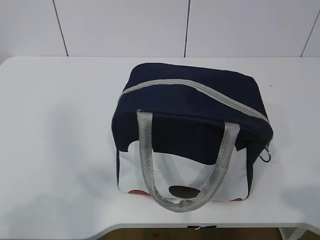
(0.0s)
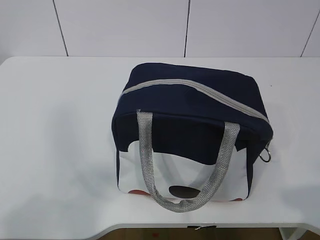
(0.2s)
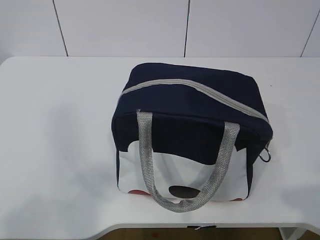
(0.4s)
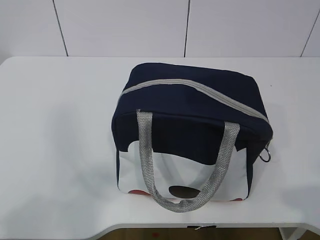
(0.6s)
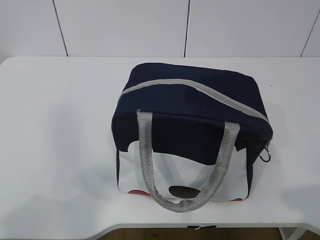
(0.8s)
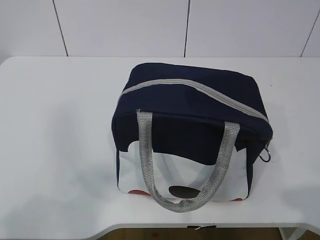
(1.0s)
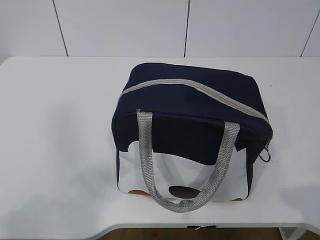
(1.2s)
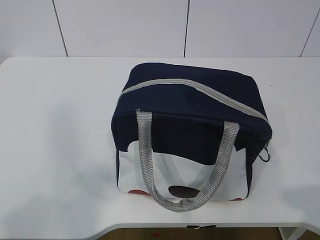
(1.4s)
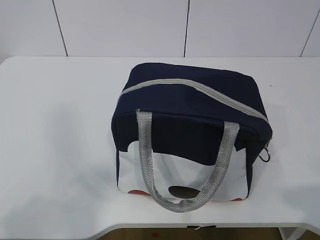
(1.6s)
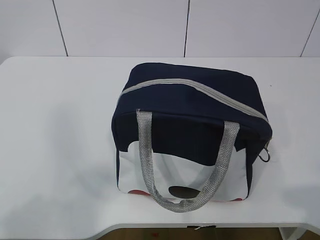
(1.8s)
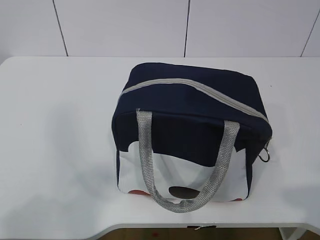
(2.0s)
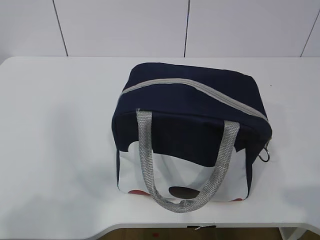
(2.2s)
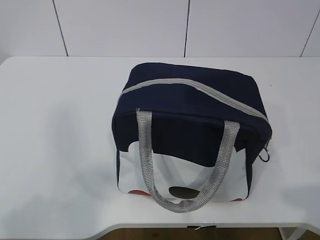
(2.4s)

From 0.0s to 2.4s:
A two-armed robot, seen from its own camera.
From 0.0s to 2.4s: The two grippers keep their place.

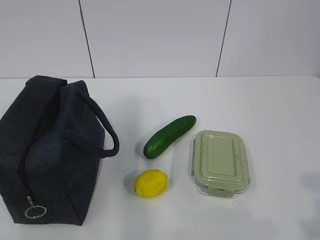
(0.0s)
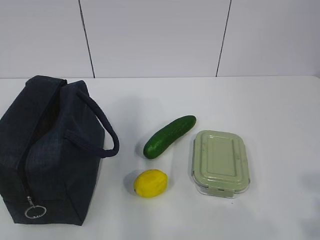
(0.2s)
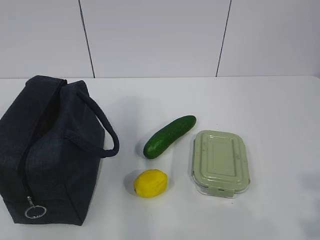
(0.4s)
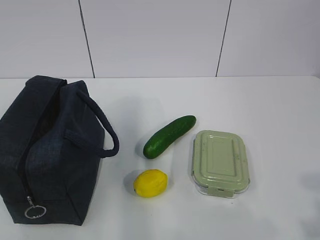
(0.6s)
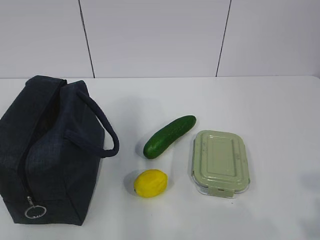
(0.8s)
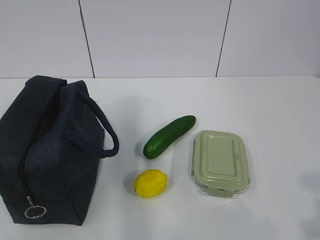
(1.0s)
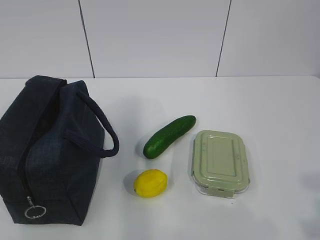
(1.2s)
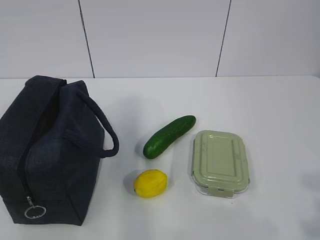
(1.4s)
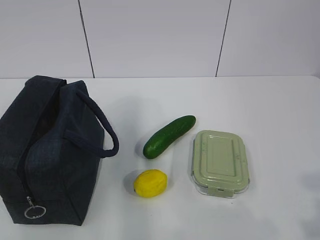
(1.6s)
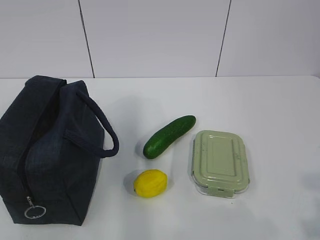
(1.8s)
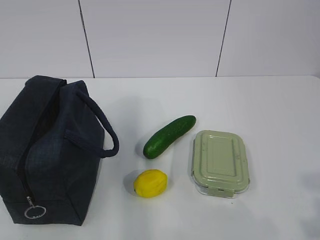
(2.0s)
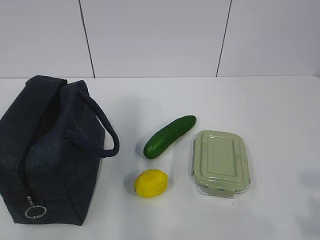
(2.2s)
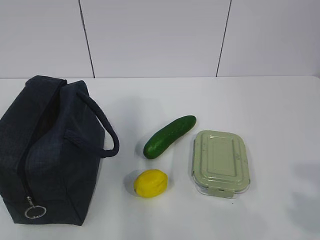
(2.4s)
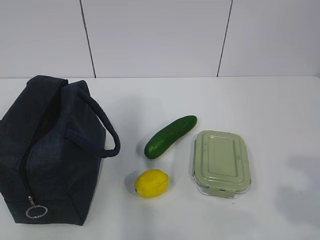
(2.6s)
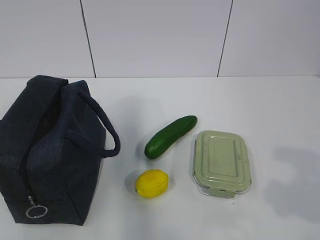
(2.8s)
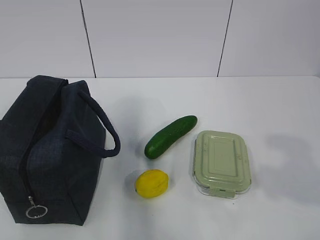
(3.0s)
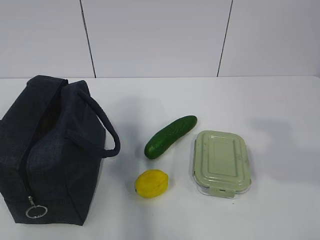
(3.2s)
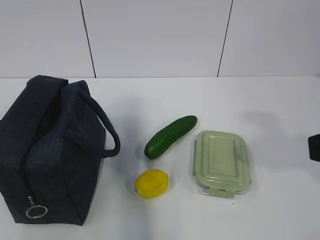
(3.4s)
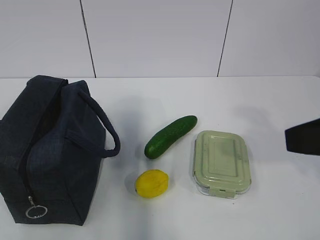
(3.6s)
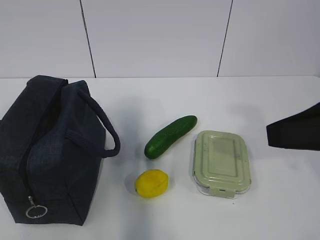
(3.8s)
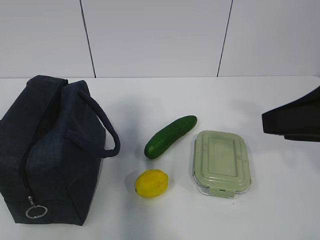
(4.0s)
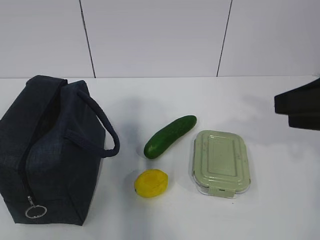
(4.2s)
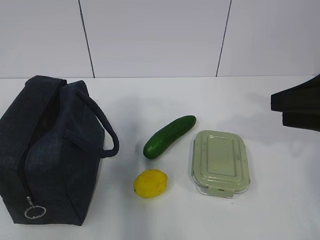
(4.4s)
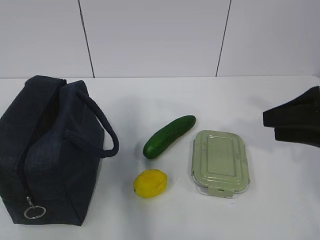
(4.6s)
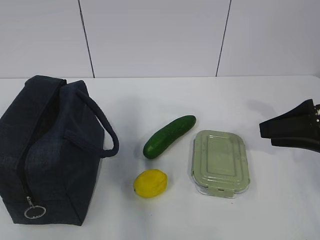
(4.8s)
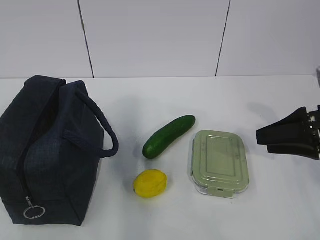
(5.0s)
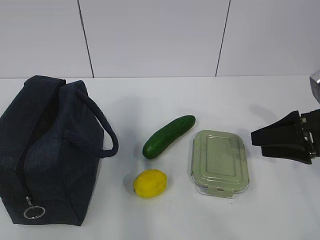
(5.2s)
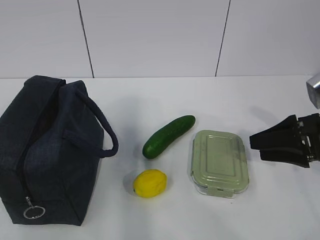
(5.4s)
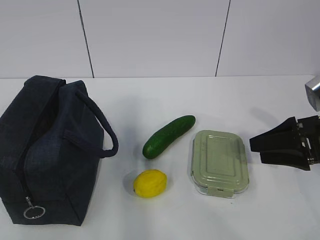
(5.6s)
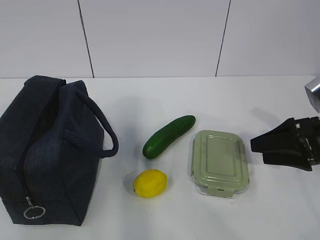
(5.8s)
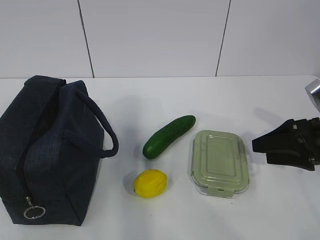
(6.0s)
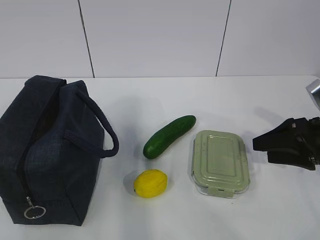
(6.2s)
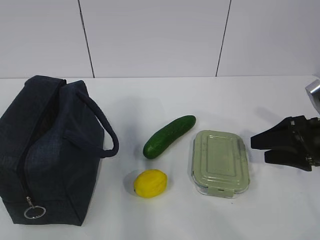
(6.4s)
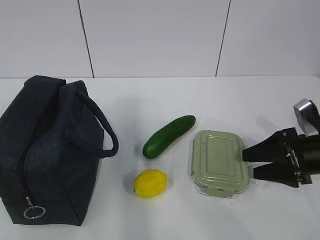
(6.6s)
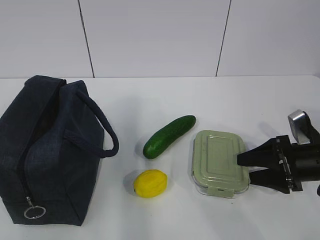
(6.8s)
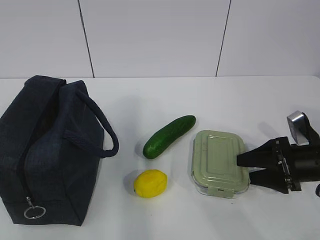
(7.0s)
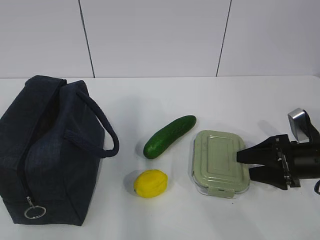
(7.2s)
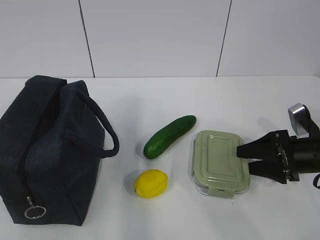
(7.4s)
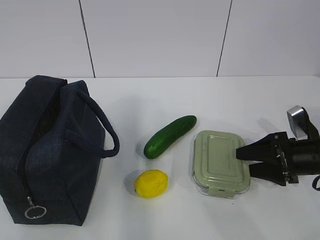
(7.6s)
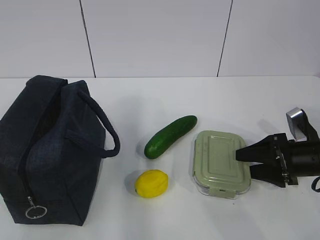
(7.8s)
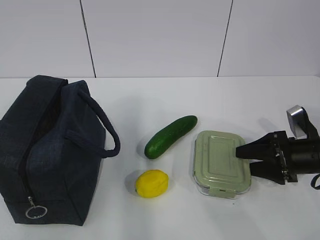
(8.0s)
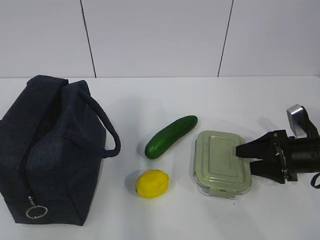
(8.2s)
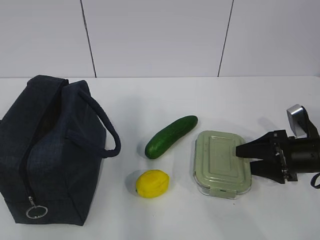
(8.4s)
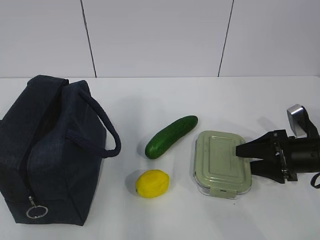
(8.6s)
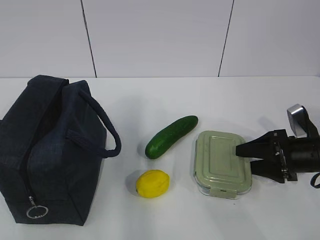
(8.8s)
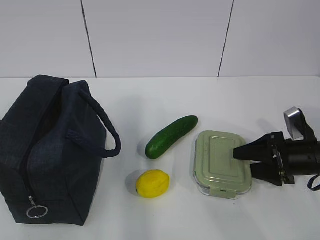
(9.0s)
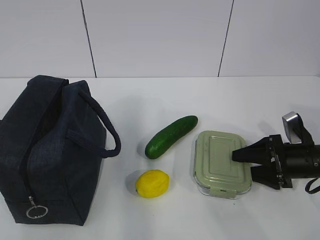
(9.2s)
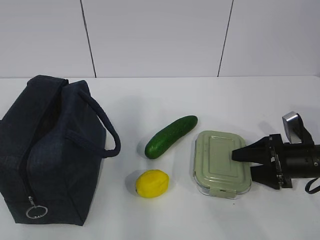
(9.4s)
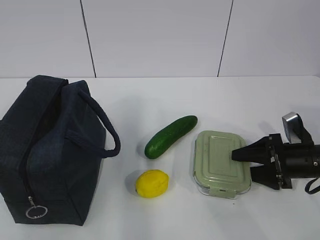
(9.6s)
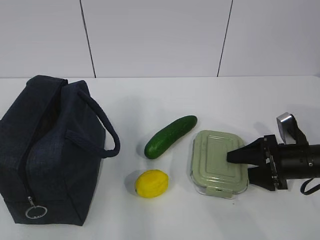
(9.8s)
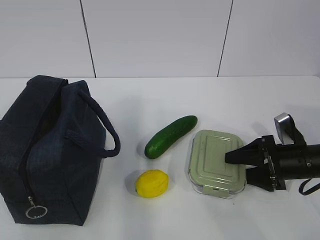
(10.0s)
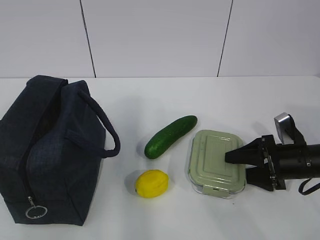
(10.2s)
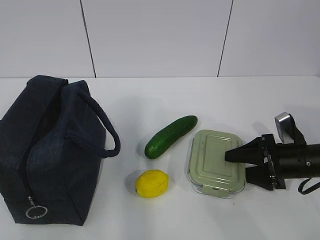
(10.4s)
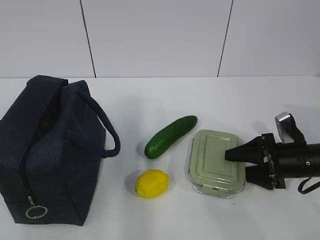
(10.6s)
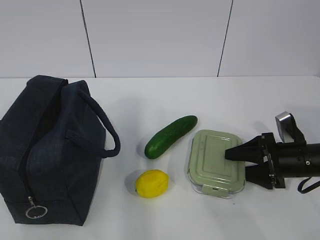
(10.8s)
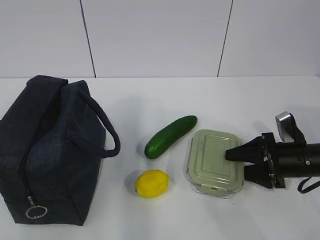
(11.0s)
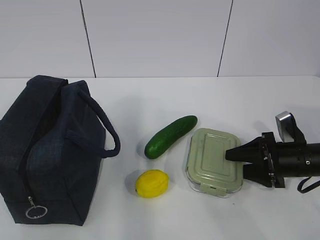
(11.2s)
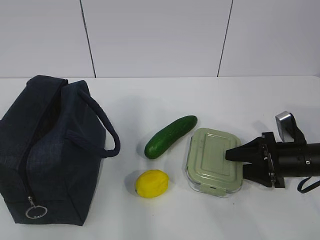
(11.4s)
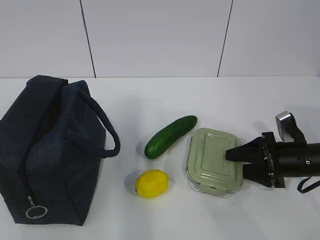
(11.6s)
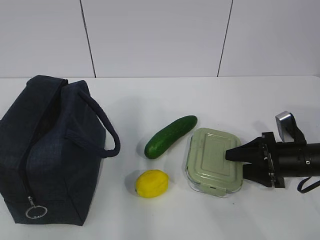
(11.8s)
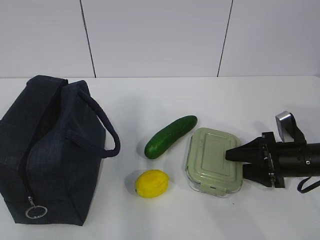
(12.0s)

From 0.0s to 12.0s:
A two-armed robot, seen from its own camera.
From 1.6s to 3.0s: The right gripper heads forward, covering roughly 5 cm, and opens its fingers.
From 3.0s to 4.4s: The right gripper moves forward, roughly 15 cm.
From 4.4s to 6.0s: The right gripper is displaced downward and forward by about 10 cm.
From 6.0s to 7.6s: The right gripper moves downward, roughly 10 cm.
From 7.6s to 9.0s: Neither gripper changes place.
From 9.0s to 10.4s: The grippers move only a little.
From 10.4s to 12.0s: The two grippers keep their place.

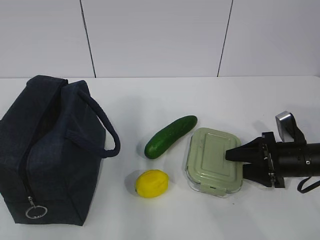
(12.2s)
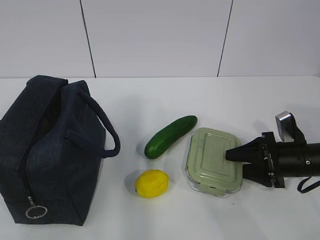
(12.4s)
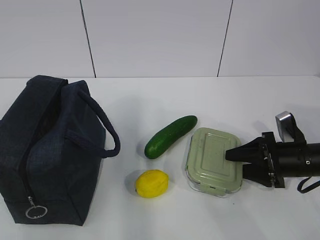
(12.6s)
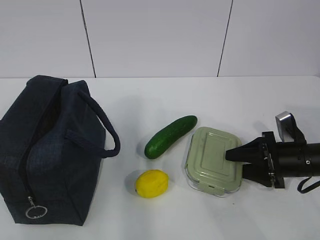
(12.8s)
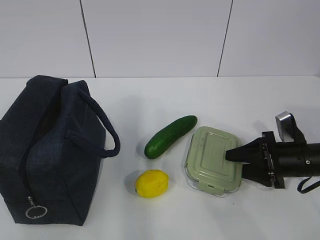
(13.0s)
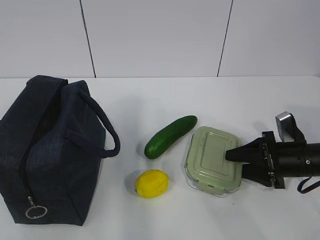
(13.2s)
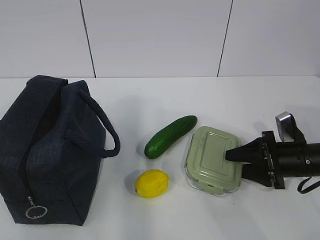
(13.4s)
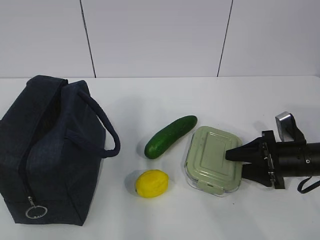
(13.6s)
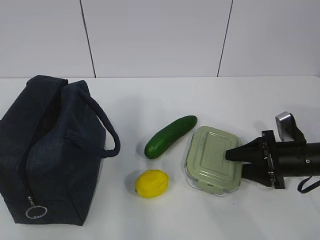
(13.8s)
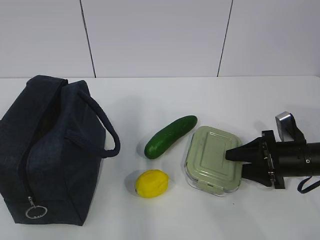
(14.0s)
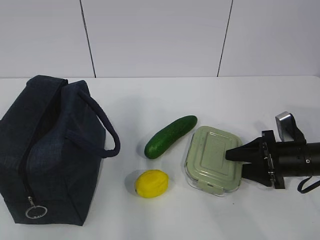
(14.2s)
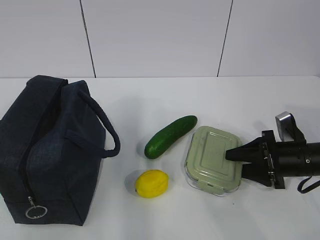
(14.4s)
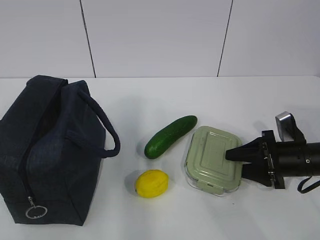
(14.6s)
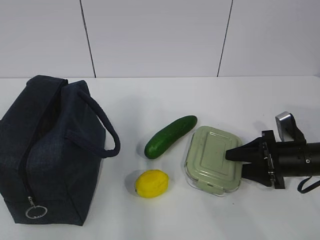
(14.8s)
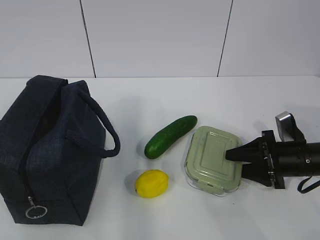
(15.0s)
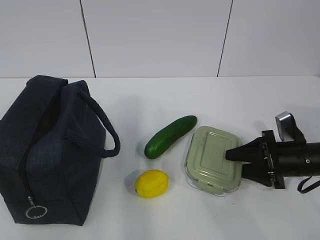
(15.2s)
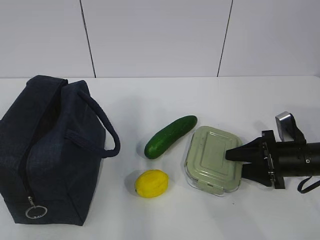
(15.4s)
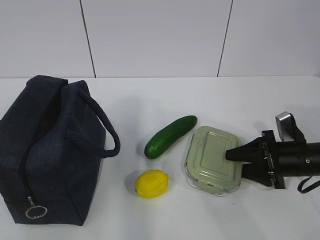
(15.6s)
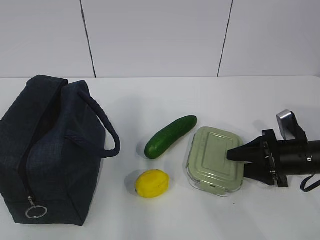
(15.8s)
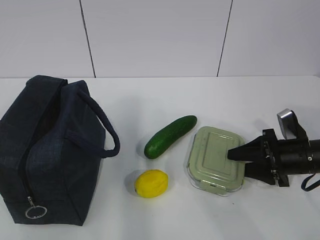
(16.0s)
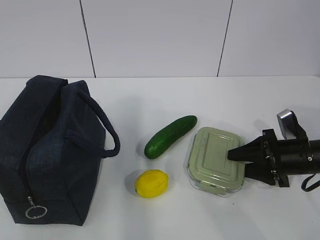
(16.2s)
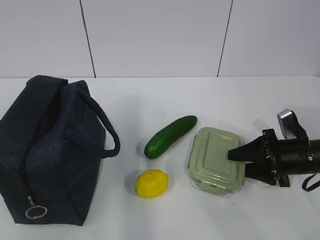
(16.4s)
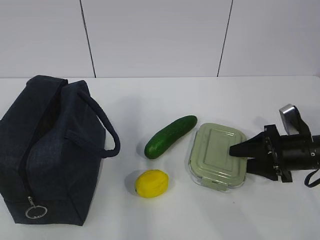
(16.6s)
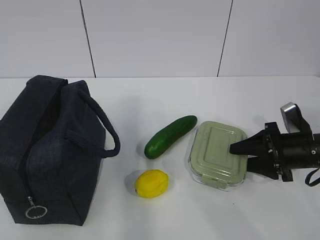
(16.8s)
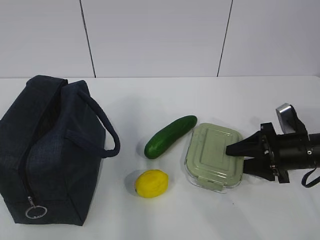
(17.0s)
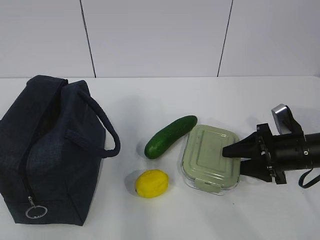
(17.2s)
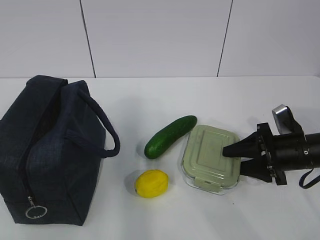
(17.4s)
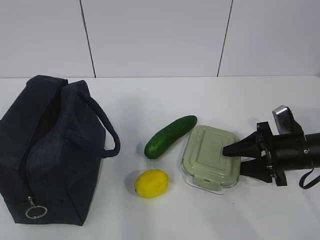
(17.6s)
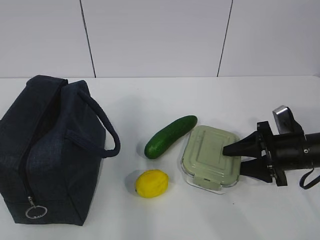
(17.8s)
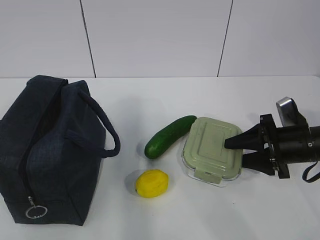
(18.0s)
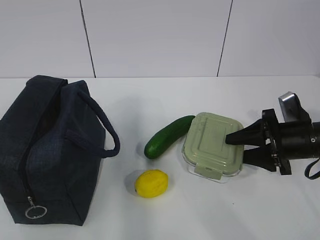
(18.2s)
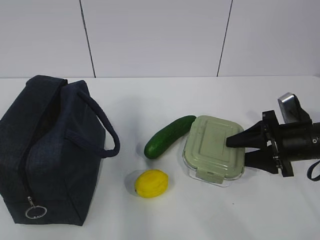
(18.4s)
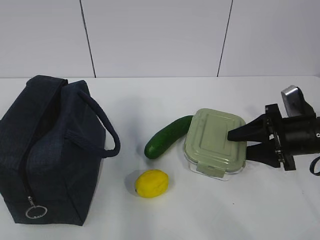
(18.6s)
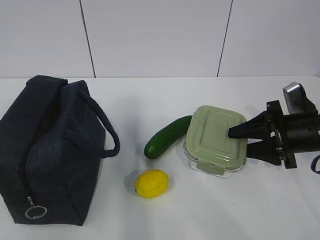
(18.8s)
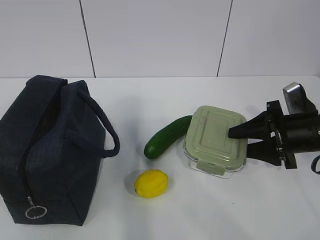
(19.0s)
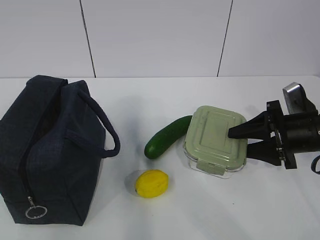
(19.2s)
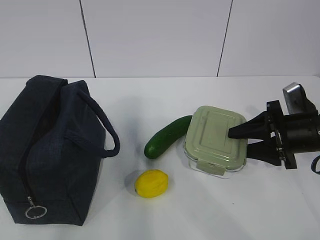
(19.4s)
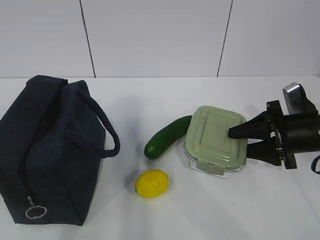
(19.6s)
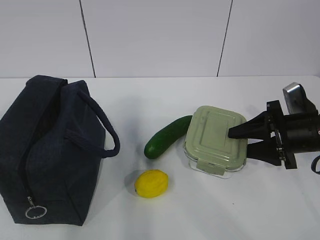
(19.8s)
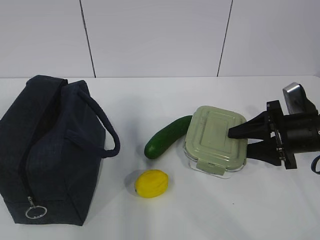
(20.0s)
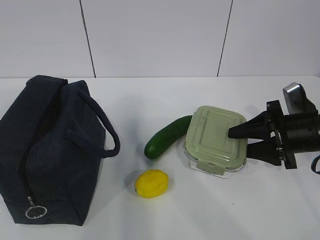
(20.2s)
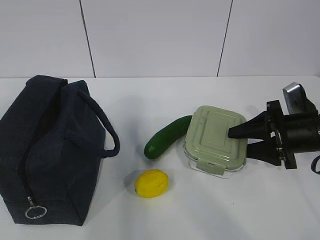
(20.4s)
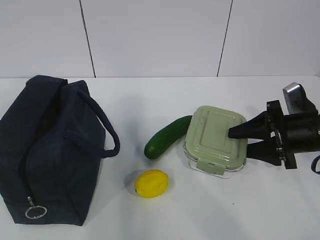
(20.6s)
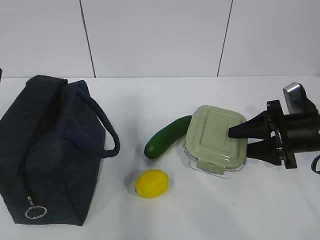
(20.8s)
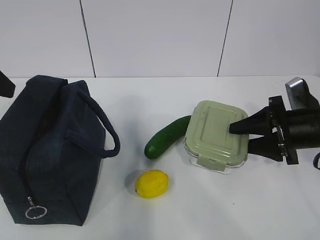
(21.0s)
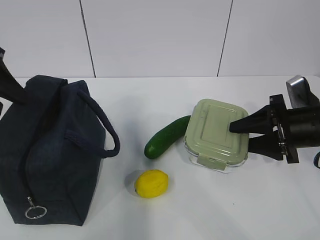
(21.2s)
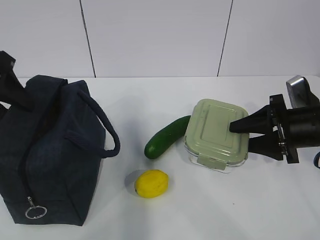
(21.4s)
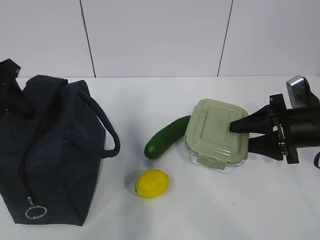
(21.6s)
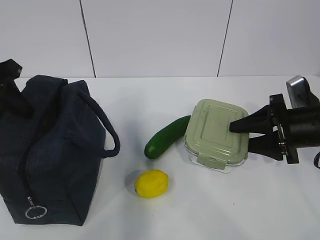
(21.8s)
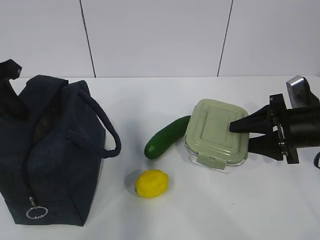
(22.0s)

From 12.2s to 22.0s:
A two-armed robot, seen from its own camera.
From 12.2s to 16.4s: Both grippers stay put.
From 16.4s to 17.8s: The grippers move only a little.
From 17.8s to 19.2s: The left gripper changes place by roughly 5 cm, while the right gripper shifts roughly 5 cm upward.
From 20.6s to 22.0s: The left gripper goes about 15 cm downward and forward, and closes.
